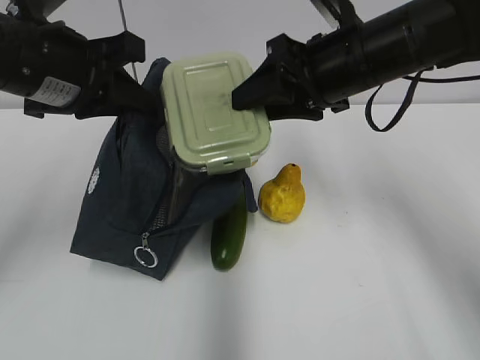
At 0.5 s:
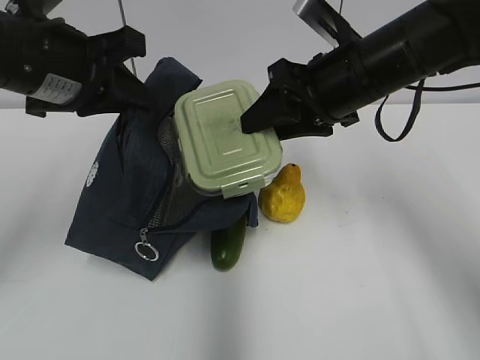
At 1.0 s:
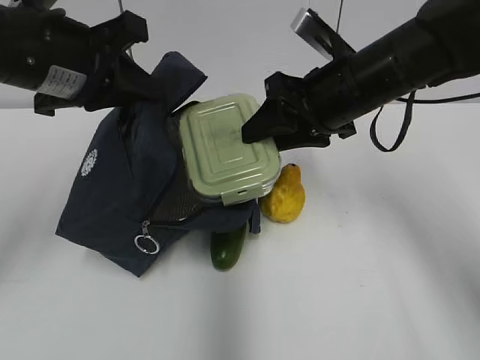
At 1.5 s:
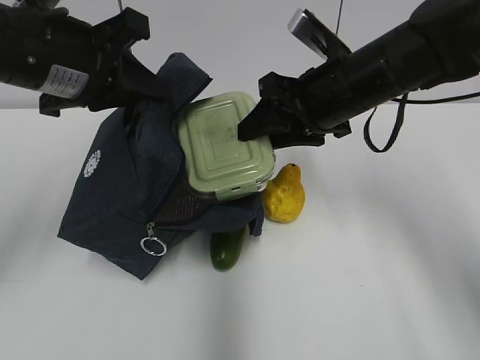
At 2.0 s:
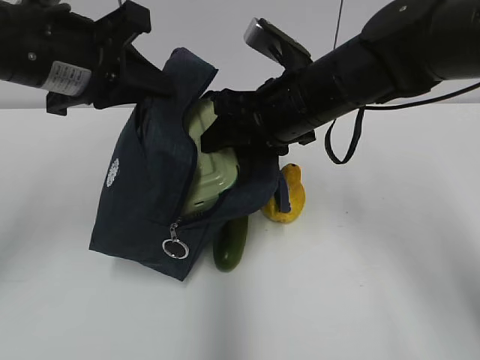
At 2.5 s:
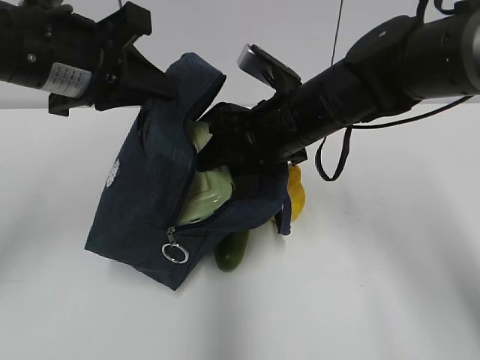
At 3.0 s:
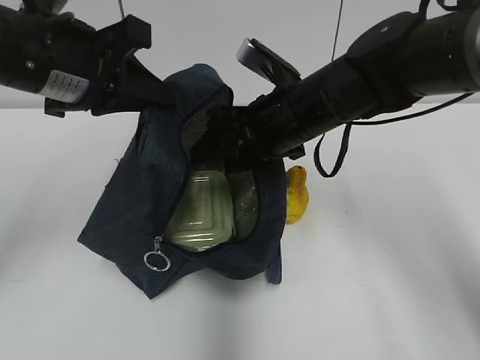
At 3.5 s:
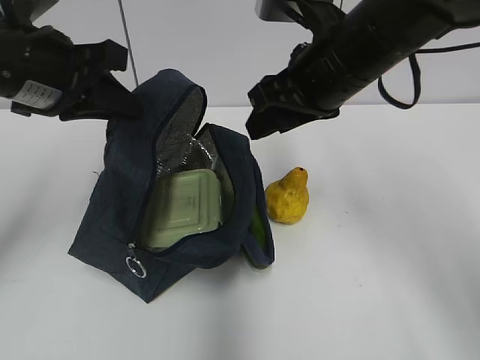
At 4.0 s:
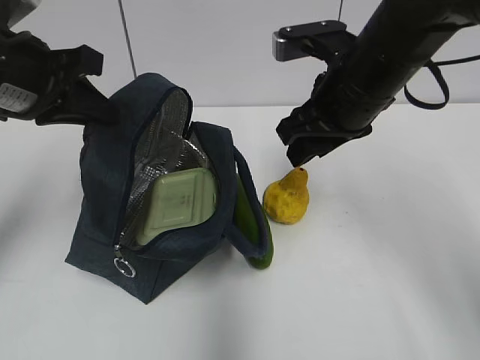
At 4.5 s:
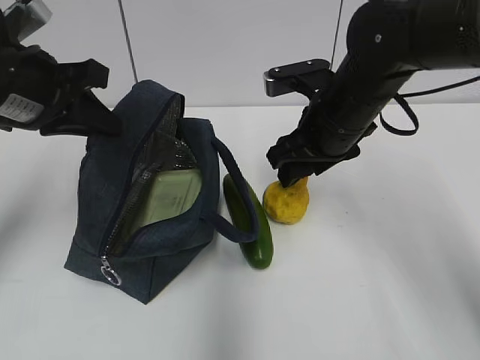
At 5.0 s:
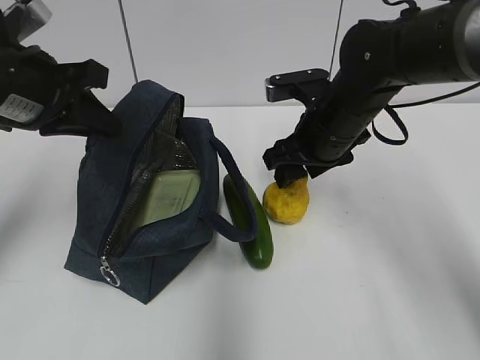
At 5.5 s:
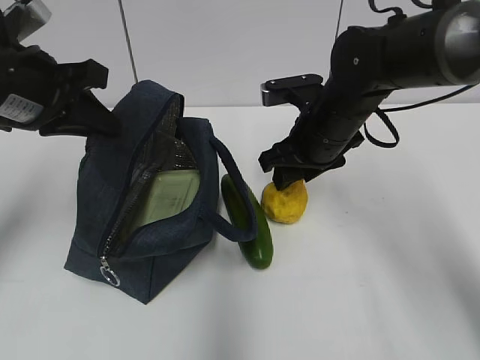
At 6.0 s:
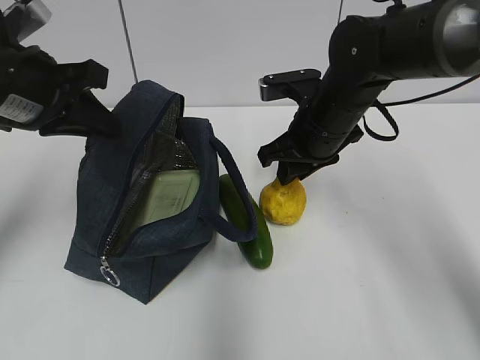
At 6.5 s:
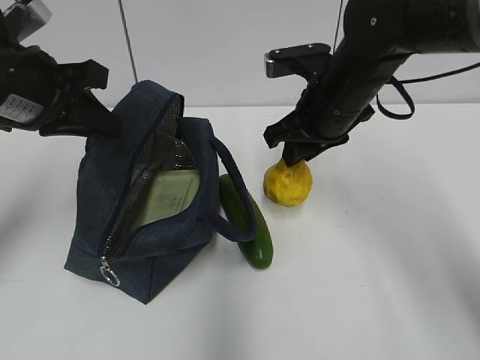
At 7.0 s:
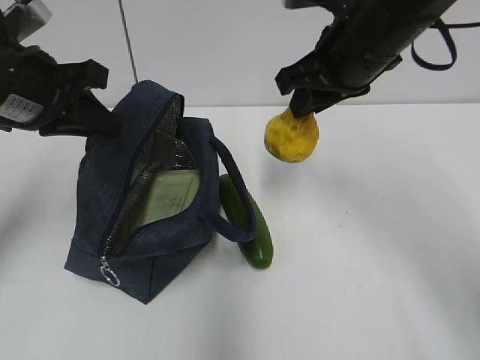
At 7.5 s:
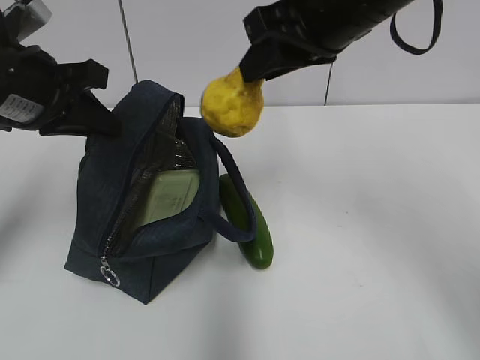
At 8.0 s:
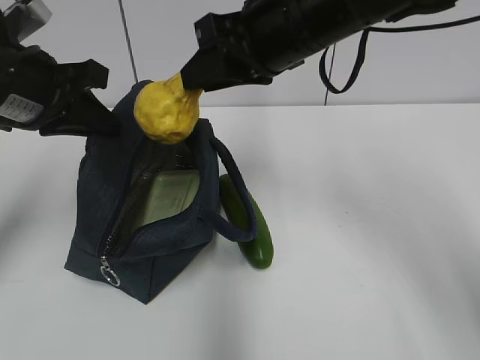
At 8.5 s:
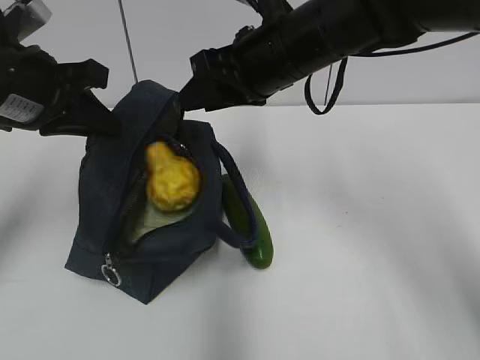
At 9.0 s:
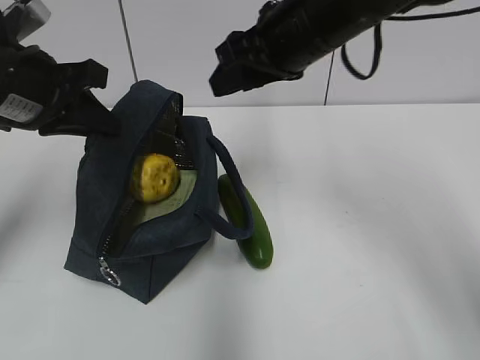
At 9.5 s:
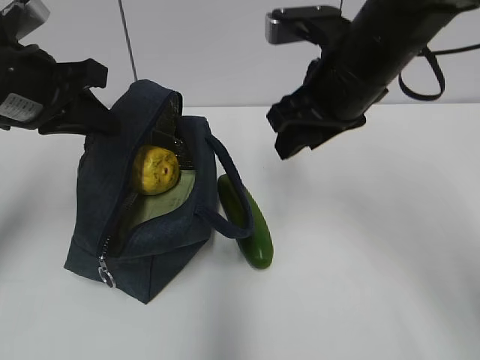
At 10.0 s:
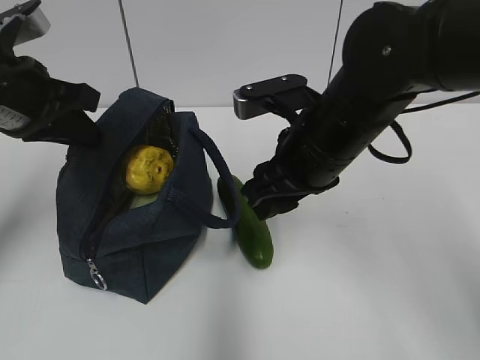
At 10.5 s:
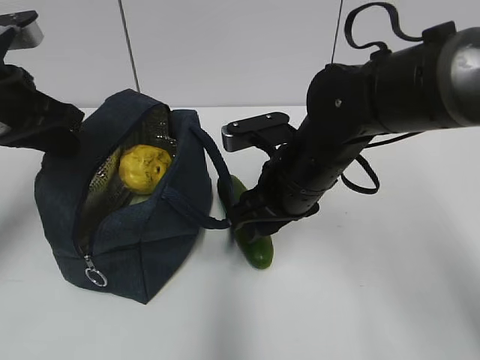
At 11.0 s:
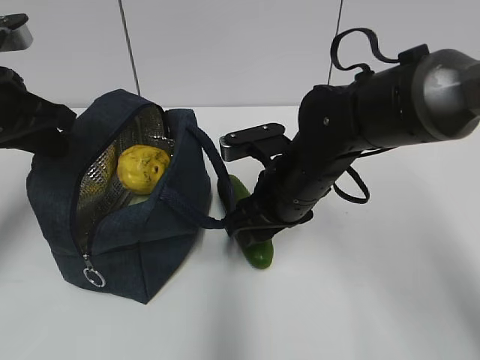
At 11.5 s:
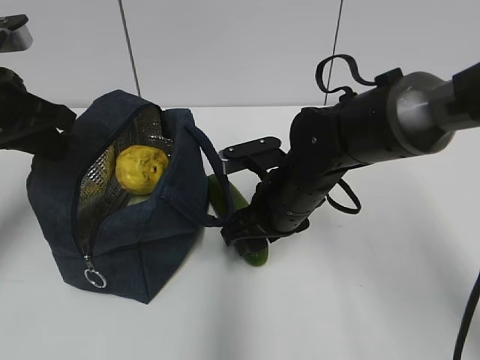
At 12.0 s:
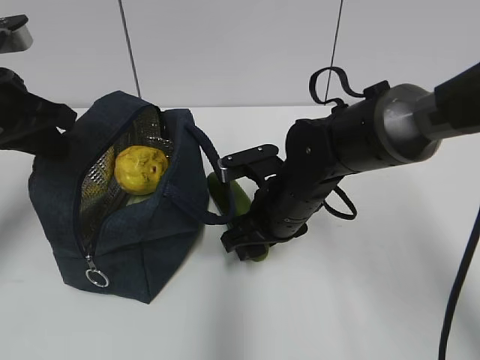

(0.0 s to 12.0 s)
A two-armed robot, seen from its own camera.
Step, 0.5 s - 2.5 s: Place it into the bag with your right hand.
Step, 3.0 s - 6.0 s: Grab the pear with your right hand.
Step, 6.5 s - 8.5 s: Place it into the bag with your right hand.
0.0 s - 2.0 s: The right gripper changes place by approximately 5 cm.
2.0 s - 4.0 s: The left gripper changes place by some 5 cm; the right gripper ends up about 5 cm from where it was.
4.0 s - 6.0 s: The right gripper heads downward, covering some 5 cm.
6.0 s - 8.0 s: The right gripper is displaced upward by roughly 10 cm.
8.0 s - 10.0 s: The right gripper heads downward, covering about 10 cm.
10.0 s - 12.0 s: The right gripper moves downward, some 10 cm.

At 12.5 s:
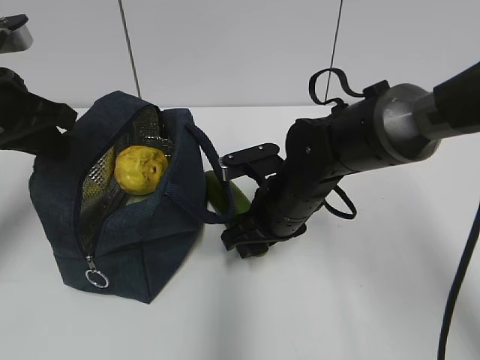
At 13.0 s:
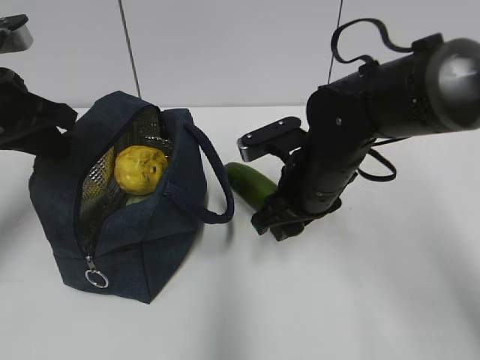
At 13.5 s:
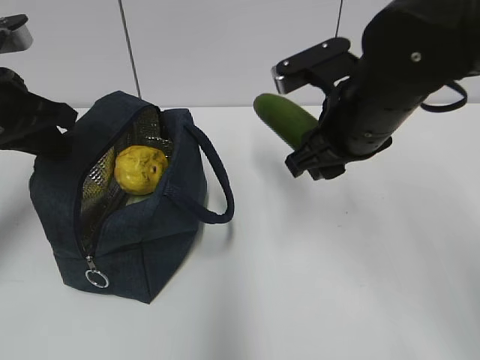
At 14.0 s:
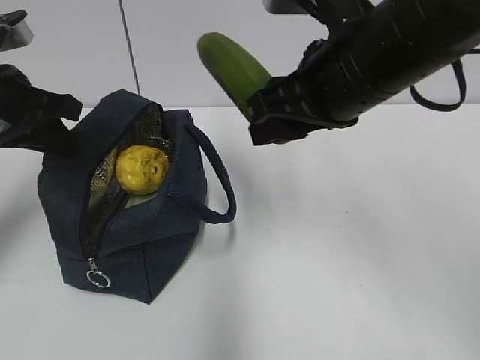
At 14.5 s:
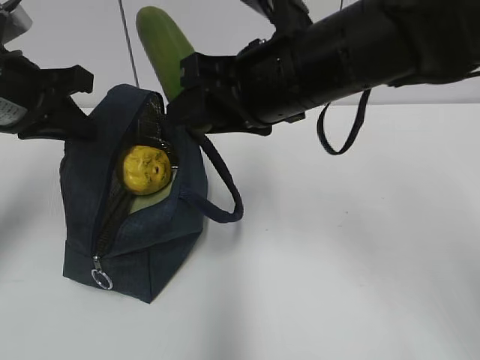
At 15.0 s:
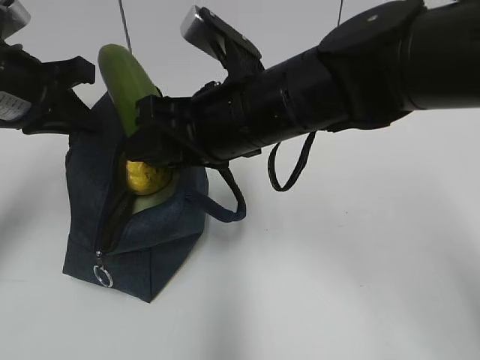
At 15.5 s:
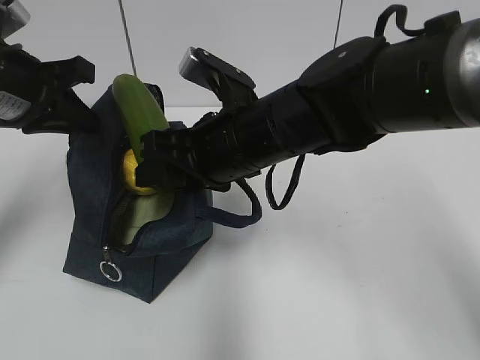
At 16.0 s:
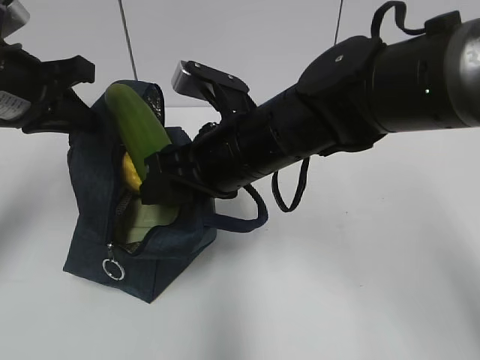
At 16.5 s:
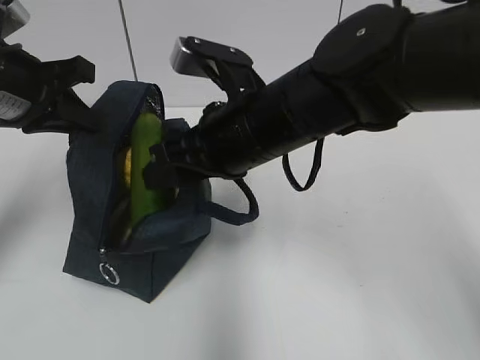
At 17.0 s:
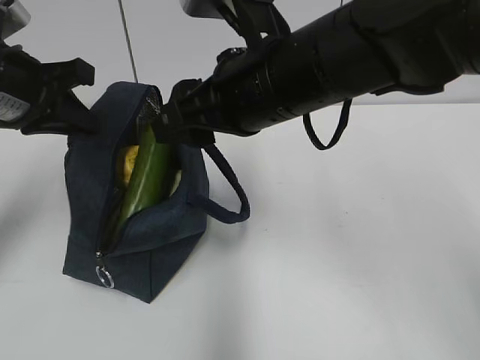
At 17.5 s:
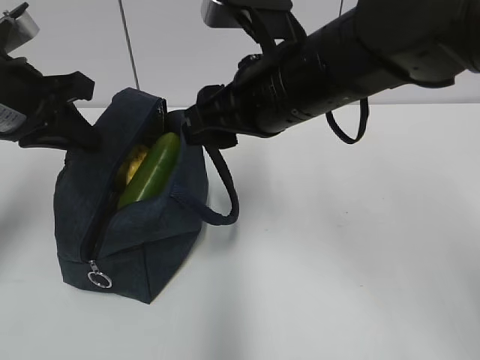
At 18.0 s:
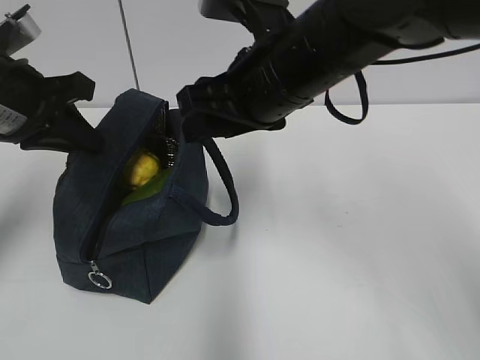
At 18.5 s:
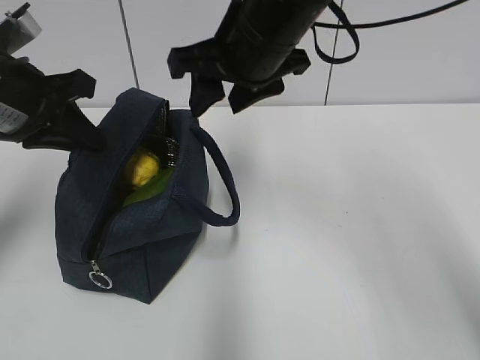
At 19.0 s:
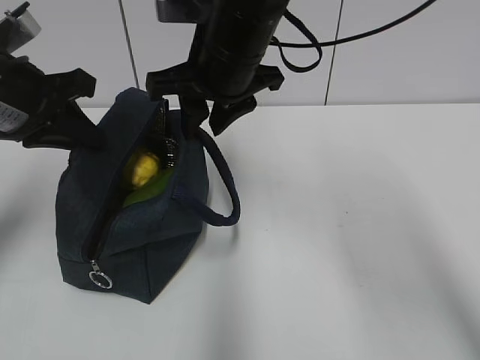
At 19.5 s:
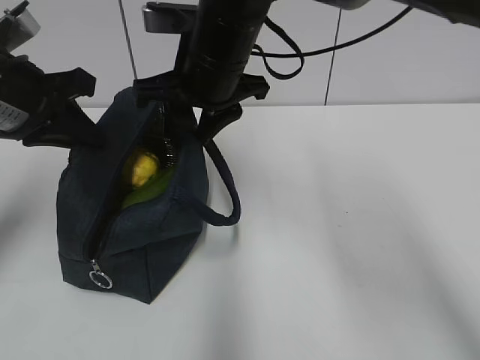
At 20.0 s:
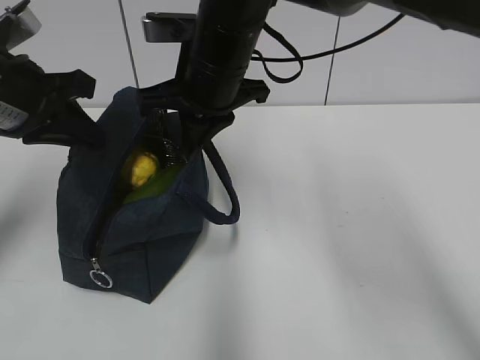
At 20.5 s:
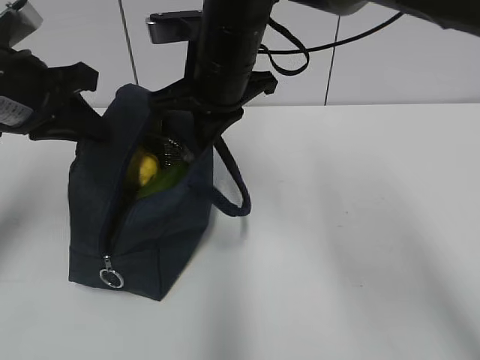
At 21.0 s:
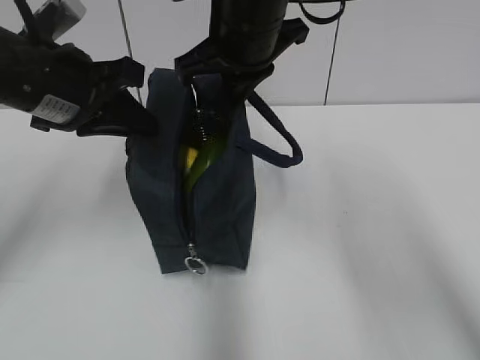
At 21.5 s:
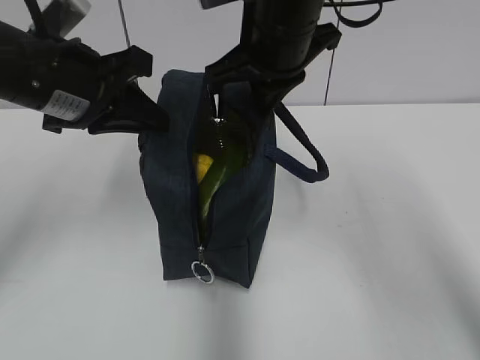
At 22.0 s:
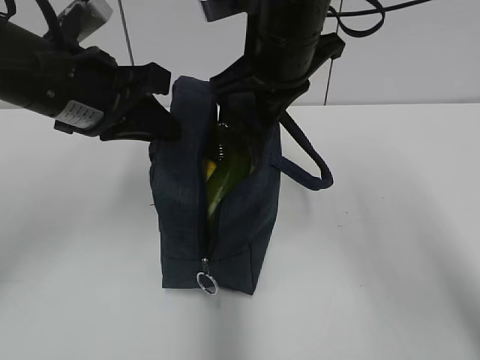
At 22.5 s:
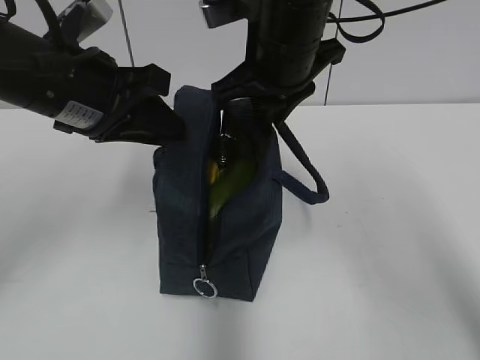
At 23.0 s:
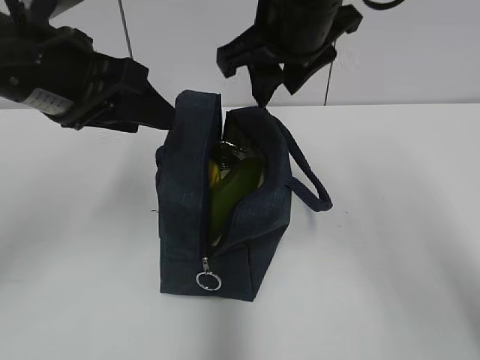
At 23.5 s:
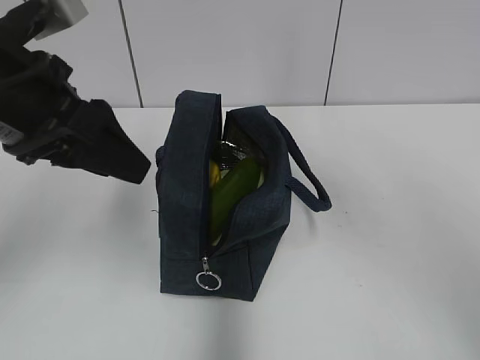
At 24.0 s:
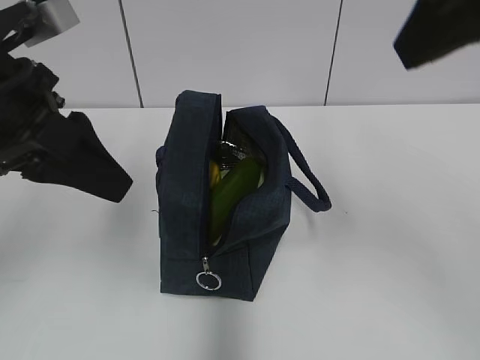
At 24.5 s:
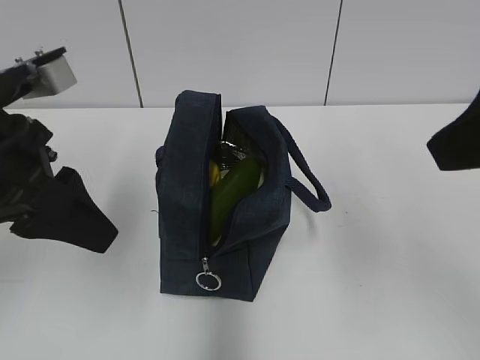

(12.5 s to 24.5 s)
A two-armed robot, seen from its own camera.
Step, 17.0 s - 20.0 s: Grab the lunch bag with your right hand.
Step, 20.5 s - 22.5 s: Move the lunch bag to the right.
12.5 s - 14.5 s: The right gripper is displaced upward by some 20 cm.
14.5 s - 16.5 s: The right gripper changes place by approximately 5 cm.
16.5 s - 18.5 s: The right gripper heads upward and forward, covering some 10 cm.
18.5 s - 20.5 s: The right gripper shifts by approximately 5 cm, and closes up.
20.5 s - 22.5 s: Both grippers travel together to the right, approximately 5 cm. The left gripper opens up.
22.5 s - 24.5 s: The left gripper shifts some 10 cm backward. The right gripper shifts roughly 25 cm backward and to the right.

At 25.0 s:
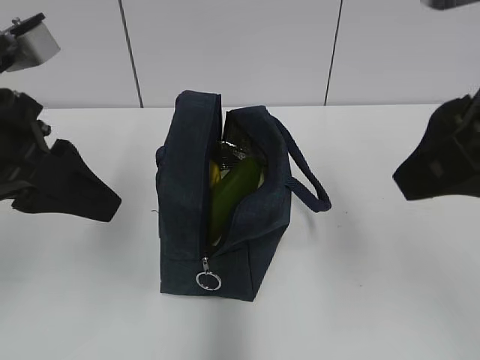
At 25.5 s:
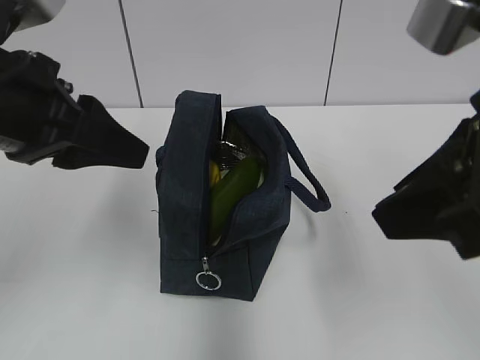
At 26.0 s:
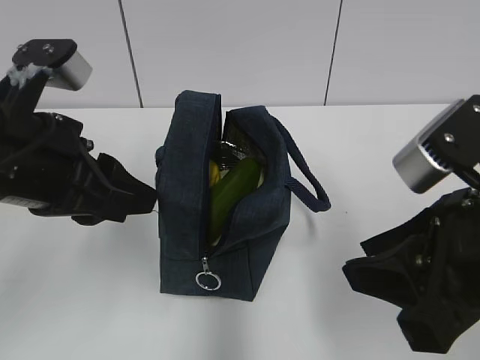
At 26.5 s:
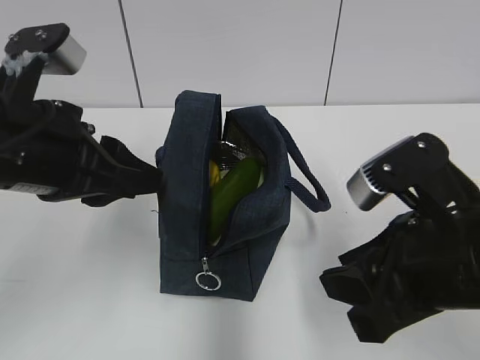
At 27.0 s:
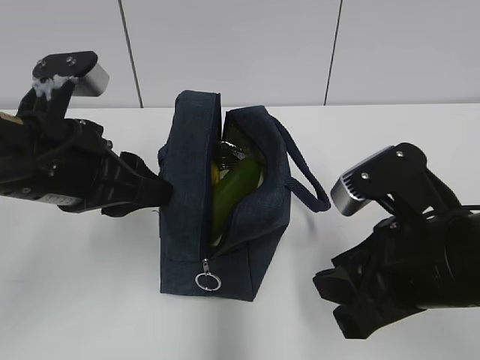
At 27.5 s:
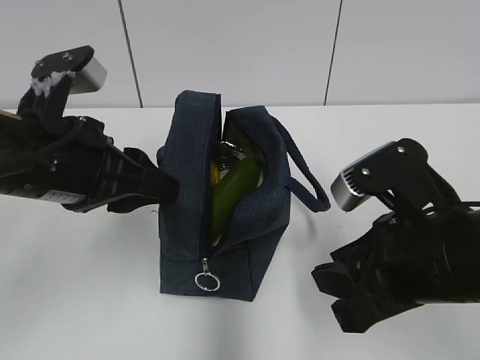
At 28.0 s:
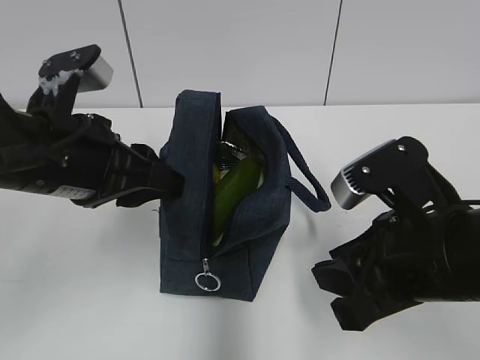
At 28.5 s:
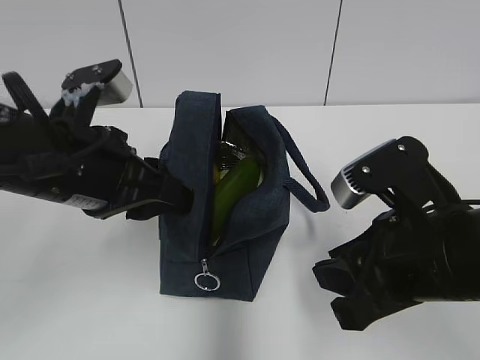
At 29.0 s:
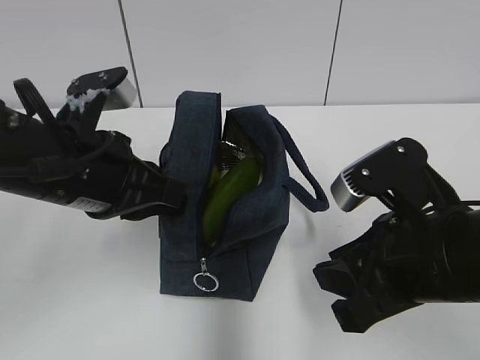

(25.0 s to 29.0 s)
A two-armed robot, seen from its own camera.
25.0 s - 27.0 s: The right gripper goes roughly 15 cm downward; the left gripper moves downward, some 5 cm.
27.0 s - 29.0 s: The left gripper closes its fingers.
